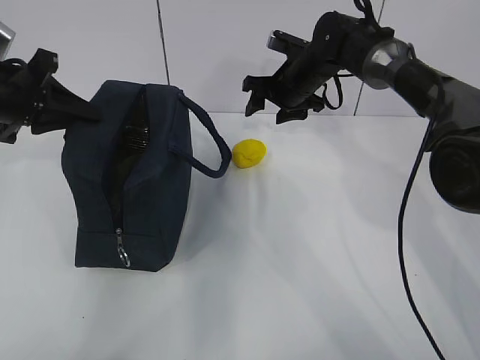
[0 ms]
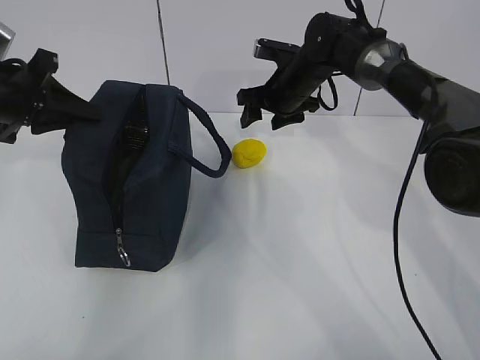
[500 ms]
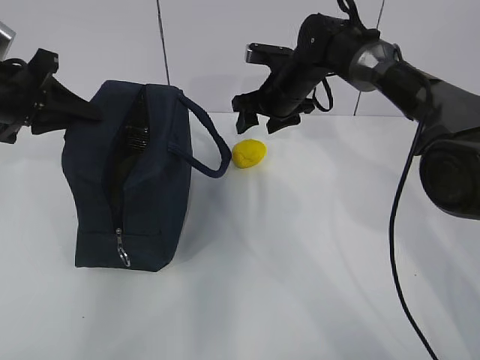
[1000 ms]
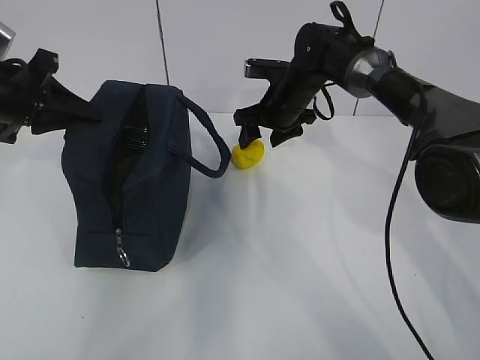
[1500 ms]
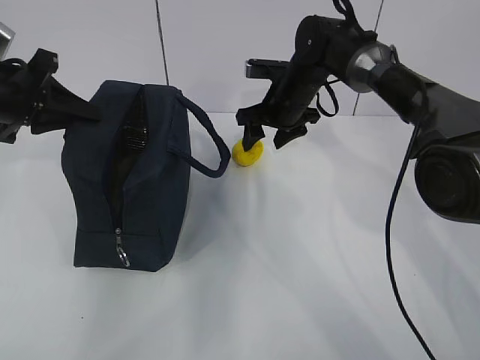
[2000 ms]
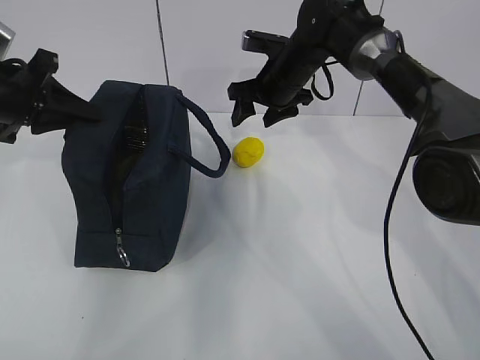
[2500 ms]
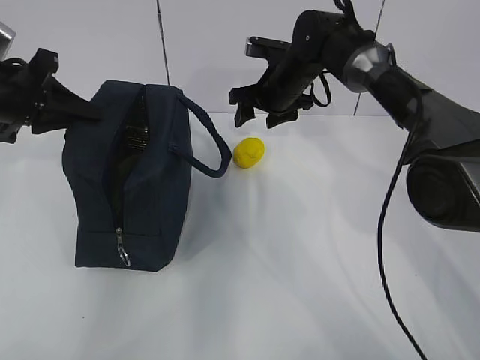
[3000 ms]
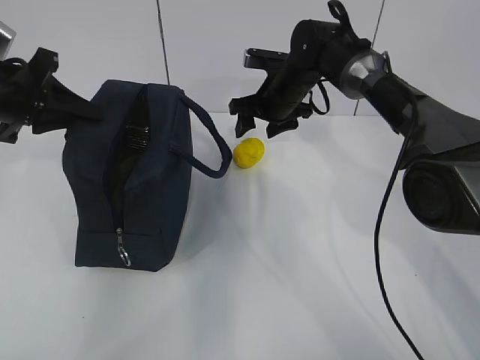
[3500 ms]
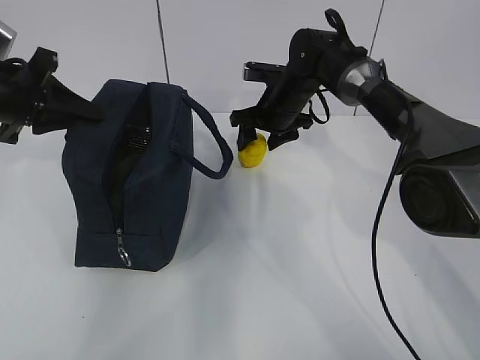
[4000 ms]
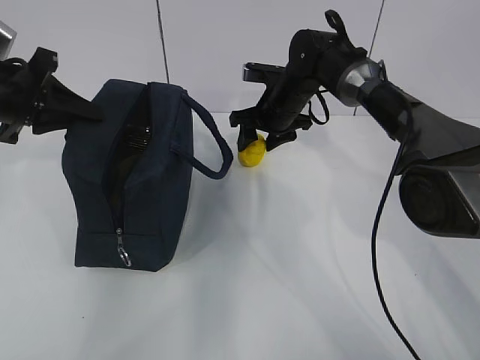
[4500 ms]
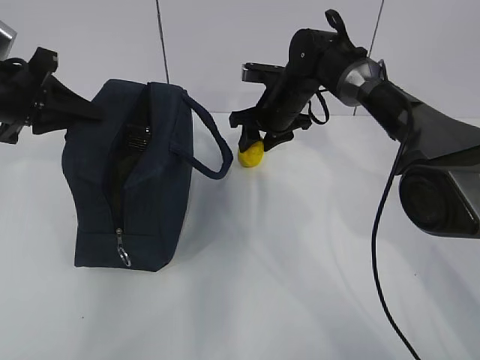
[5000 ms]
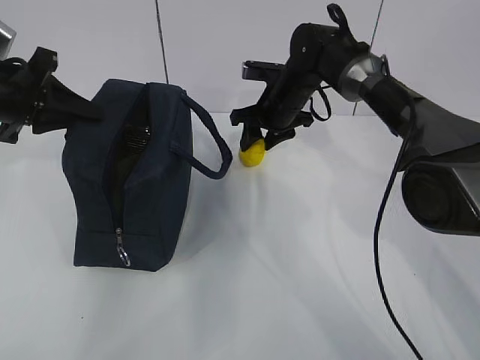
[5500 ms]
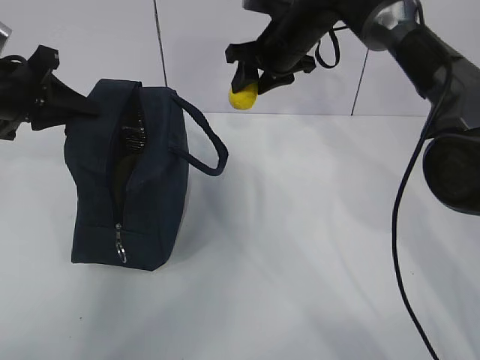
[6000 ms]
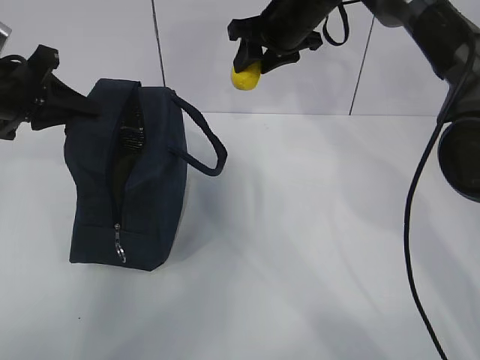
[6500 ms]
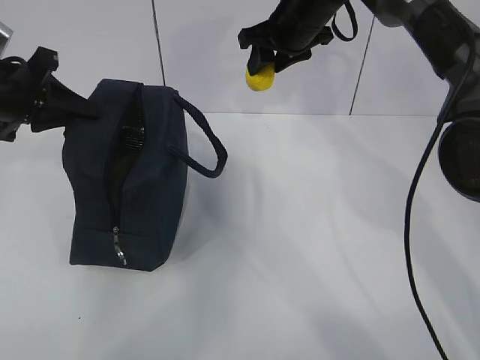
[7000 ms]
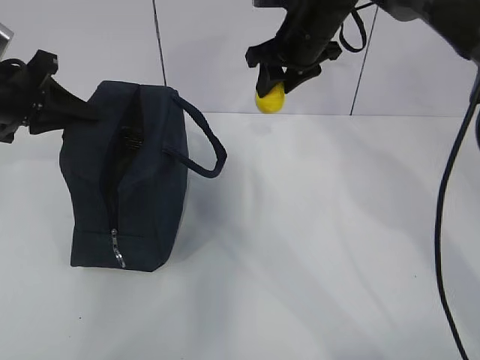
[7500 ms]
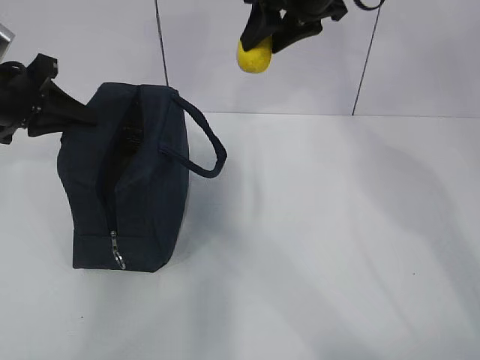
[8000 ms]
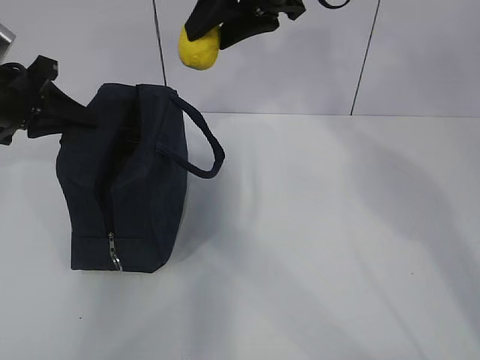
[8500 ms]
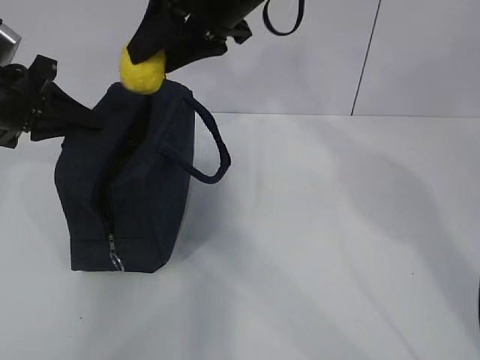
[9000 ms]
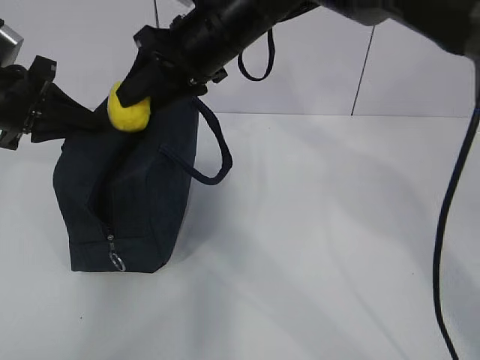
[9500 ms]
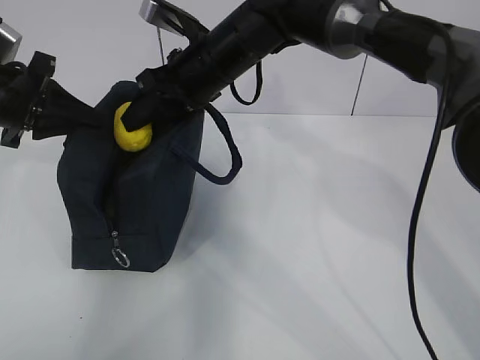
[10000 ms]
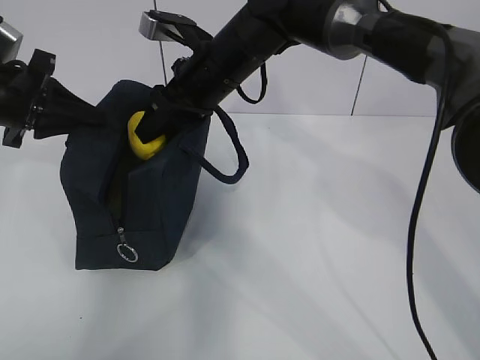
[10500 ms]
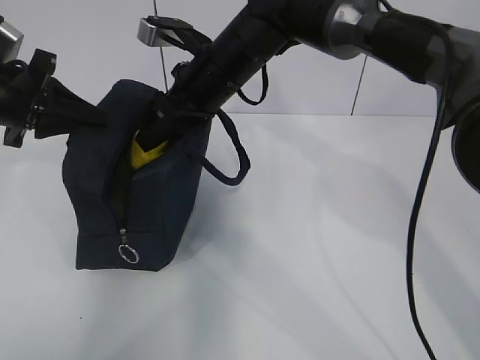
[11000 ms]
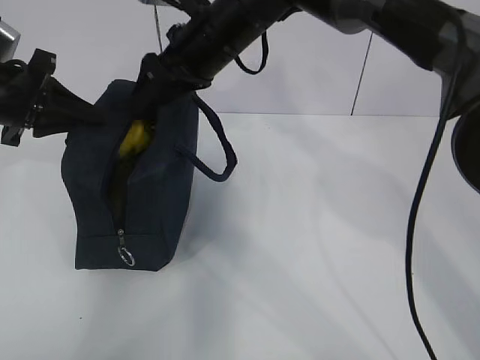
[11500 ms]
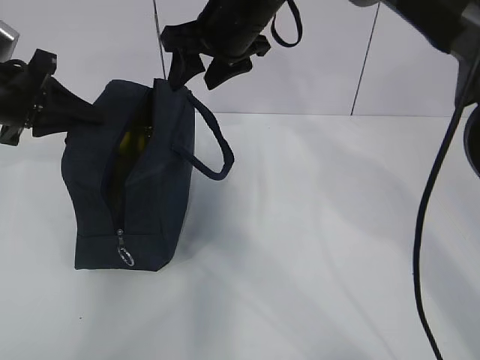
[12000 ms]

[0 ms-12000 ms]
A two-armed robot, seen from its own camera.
Step, 2000 ms to 3000 ms: Grab the lunch bag with your right hand.
Step, 3500 ms to 6500 ms: Move the lunch bag to the right.
2000 ms to 4000 ms: The grippers stay close to where they were, moving slightly.
4000 ms to 6000 ms: The right gripper shifts approximately 10 cm upward.
6000 ms to 8000 ms: The right gripper shifts about 15 cm upward and backward.
8000 ms to 10000 ms: The right gripper goes some 15 cm to the left and downward.
10000 ms to 12000 ms: The right gripper changes place by roughly 5 cm.

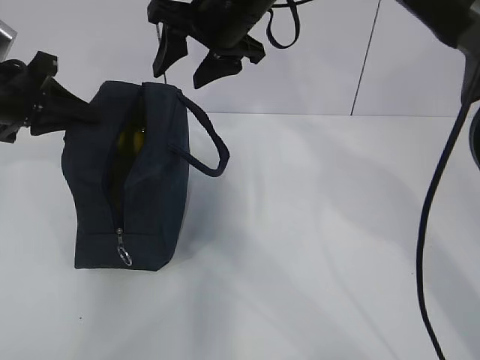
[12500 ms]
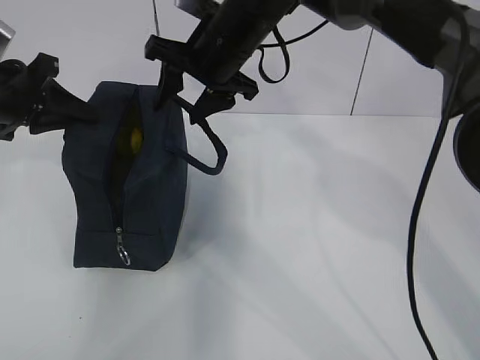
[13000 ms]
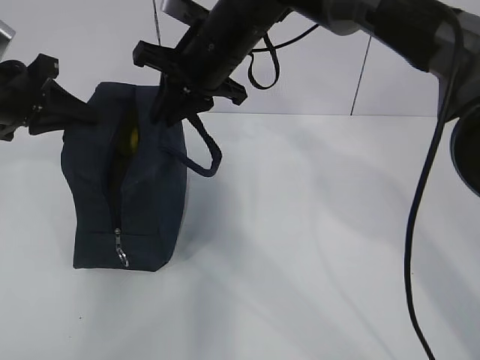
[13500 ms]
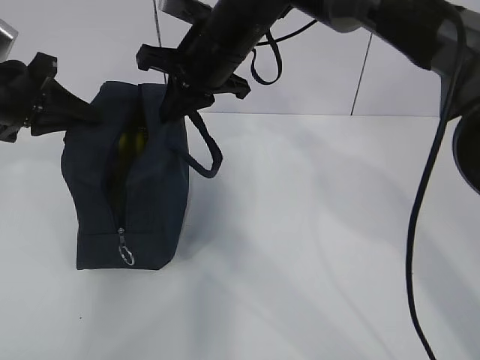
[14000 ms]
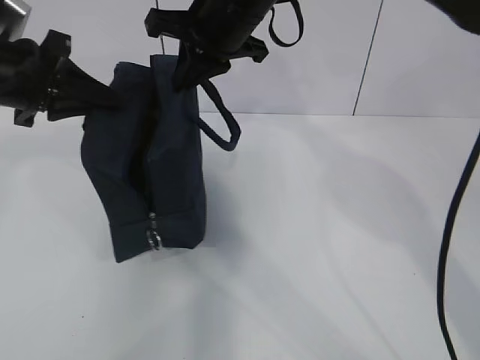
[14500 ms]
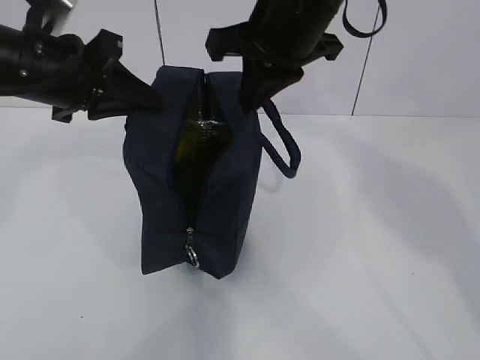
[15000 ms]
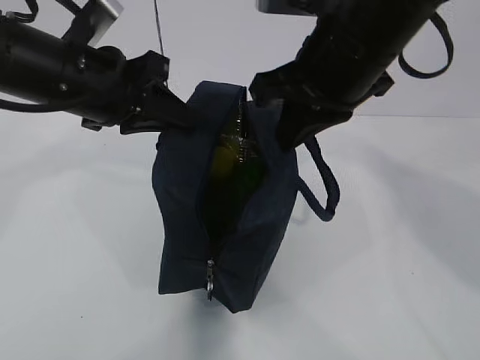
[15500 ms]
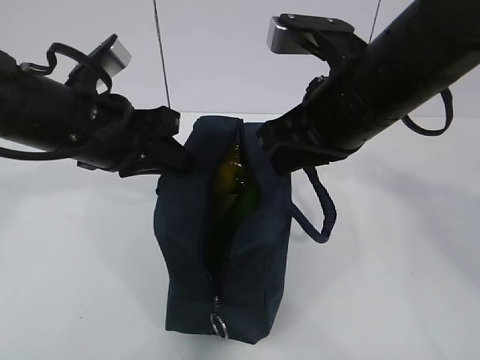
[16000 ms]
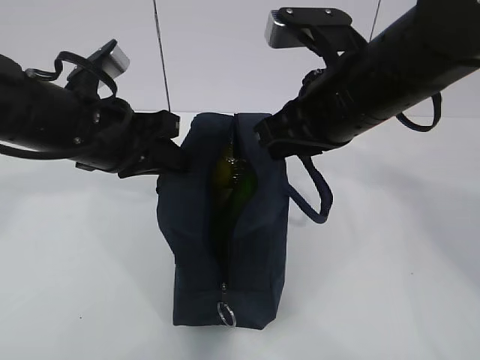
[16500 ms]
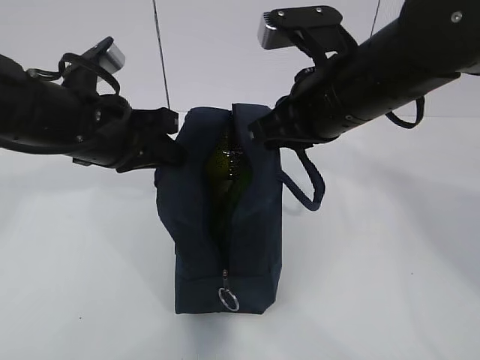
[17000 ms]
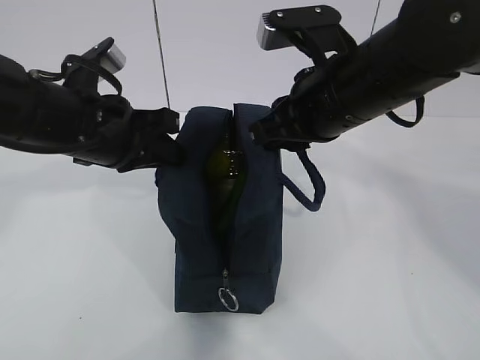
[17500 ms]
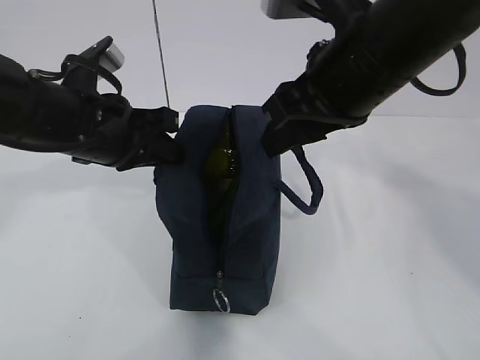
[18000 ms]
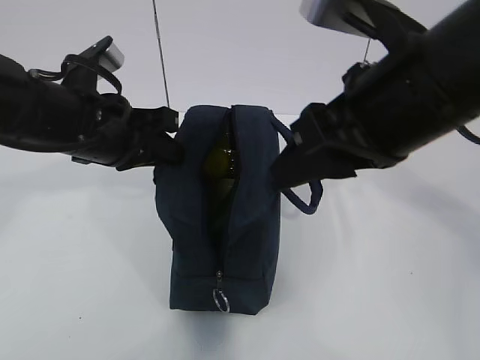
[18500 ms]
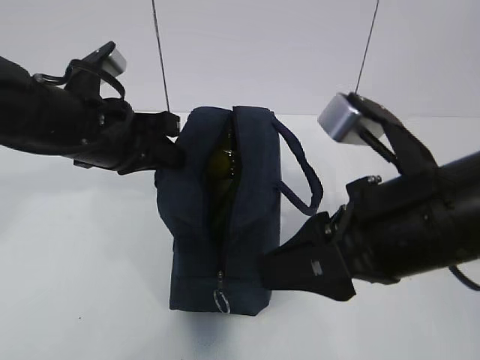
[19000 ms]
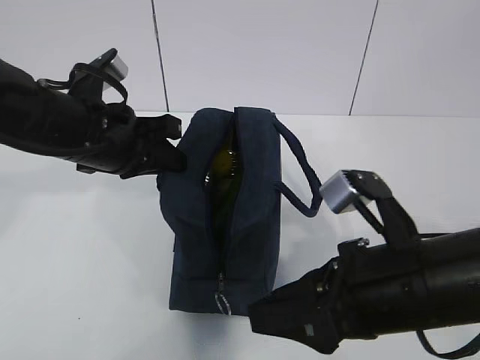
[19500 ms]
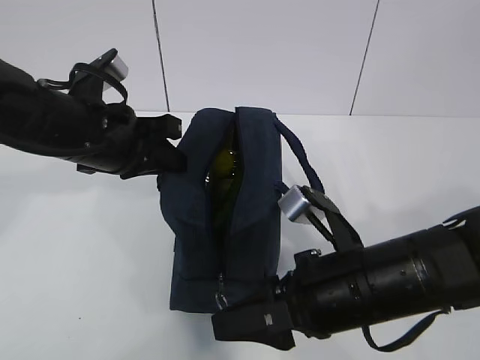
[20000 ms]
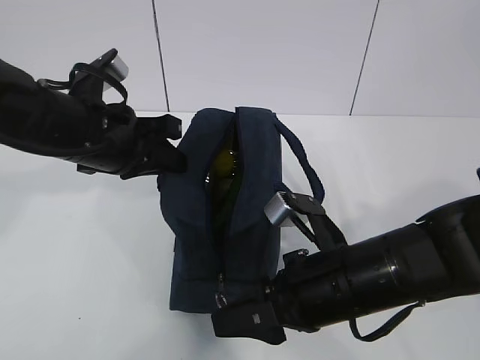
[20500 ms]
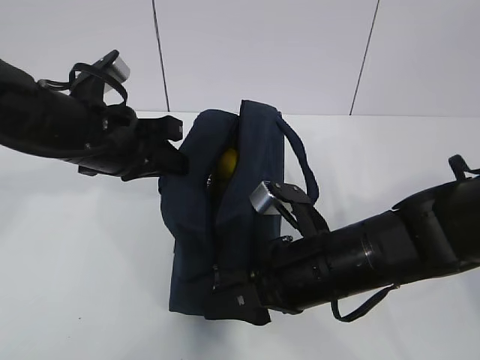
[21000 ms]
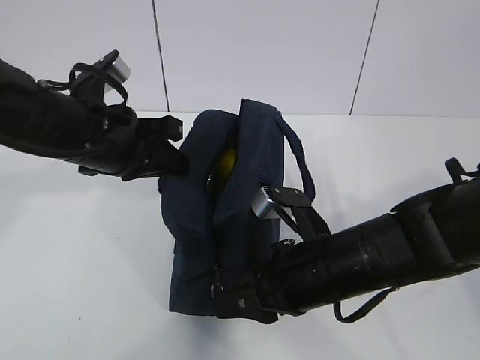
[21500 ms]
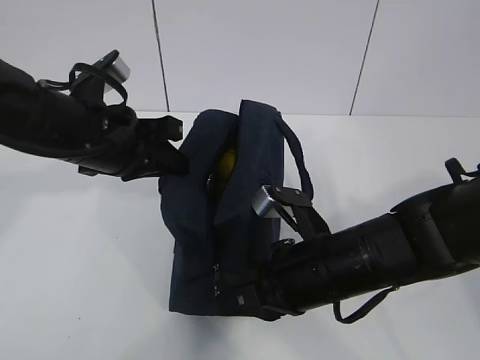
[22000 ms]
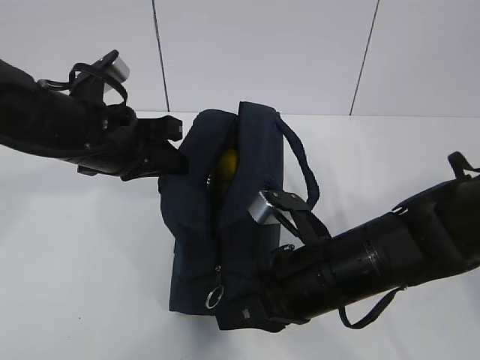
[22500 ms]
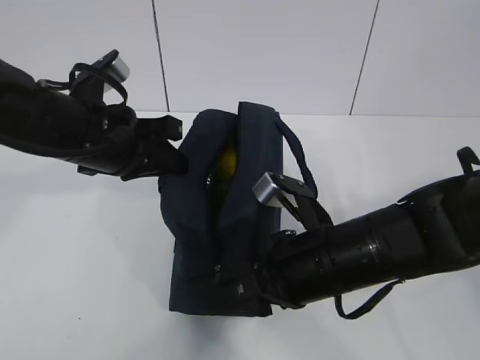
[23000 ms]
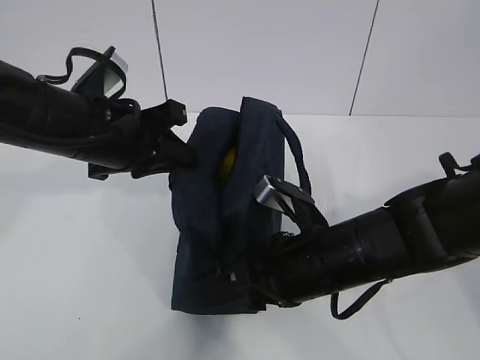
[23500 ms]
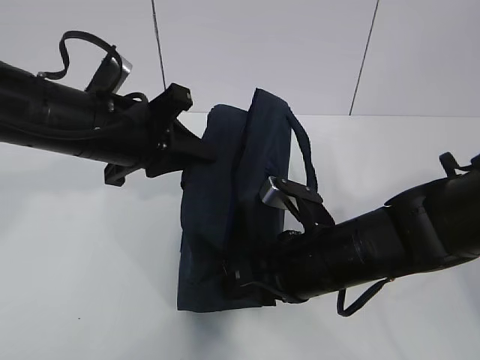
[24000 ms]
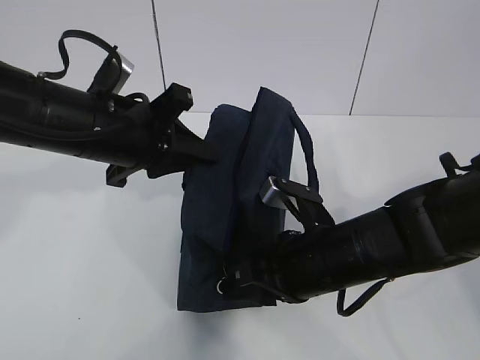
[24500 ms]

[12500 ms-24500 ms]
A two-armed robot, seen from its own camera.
Step, 12500 ms to 18500 ms: Grab the lunch bag with your left hand.
Step, 19000 ms to 24000 ms: Pull the zipper with your right hand.
12500 ms to 14500 ms: The right gripper closes up.
14500 ms to 16500 ms: The right gripper goes roughly 15 cm backward and to the right. Meanwhile the left gripper shifts some 10 cm to the right and backward.
16500 ms to 18500 ms: The right gripper moves backward, some 5 cm, and opens.
18500 ms to 20500 ms: The right gripper moves downward, about 20 cm.
20500 ms to 22500 ms: The right gripper closes.
22500 ms to 24500 ms: The right gripper opens up.

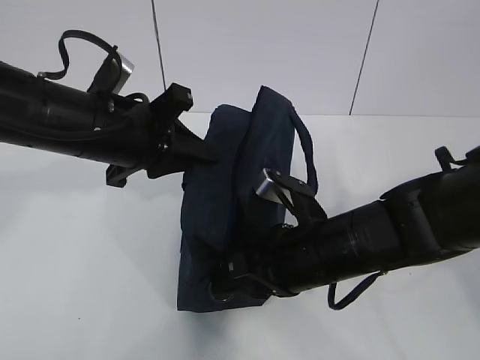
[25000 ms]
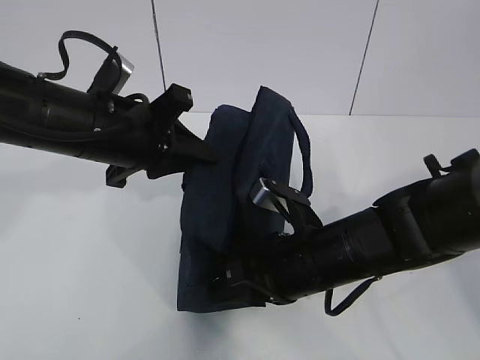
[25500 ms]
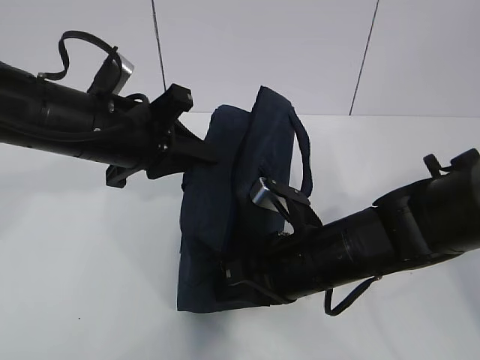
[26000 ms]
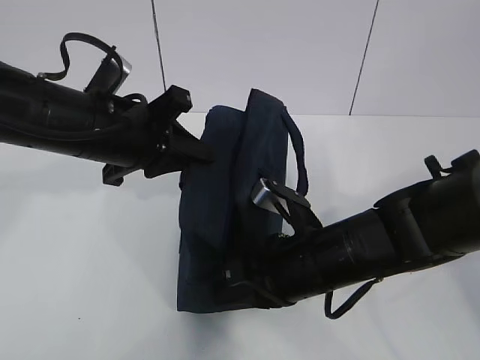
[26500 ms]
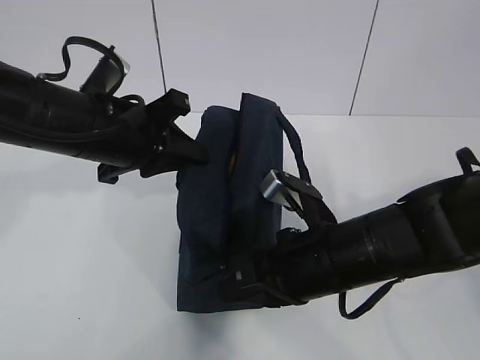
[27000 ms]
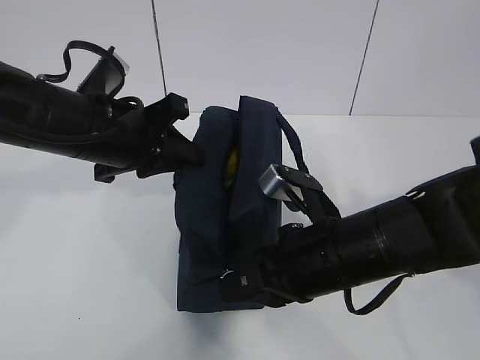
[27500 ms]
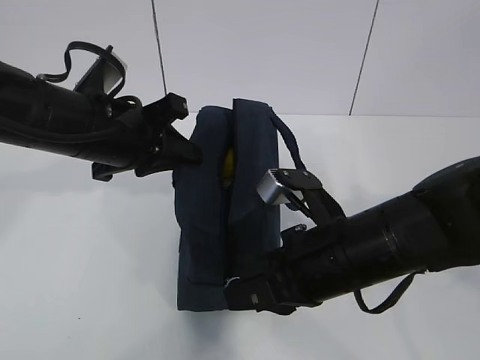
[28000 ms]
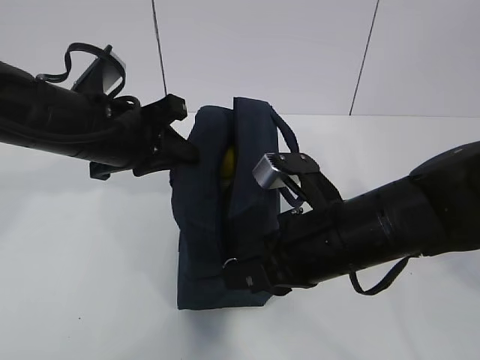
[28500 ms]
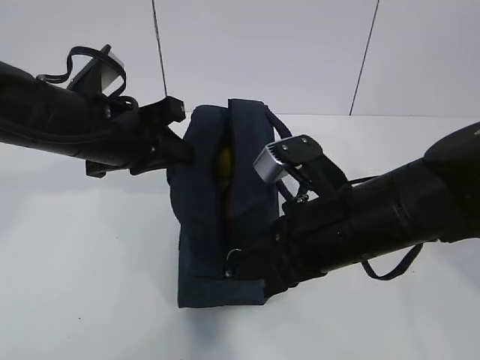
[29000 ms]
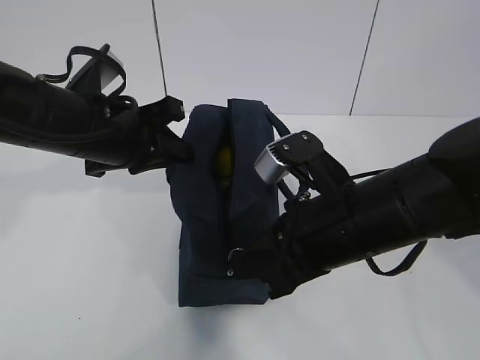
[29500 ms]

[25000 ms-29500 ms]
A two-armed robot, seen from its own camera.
25000 ms to 27000 ms: The right gripper closes its fingers.
27000 ms to 29500 ms: The right gripper goes about 5 cm upward.
